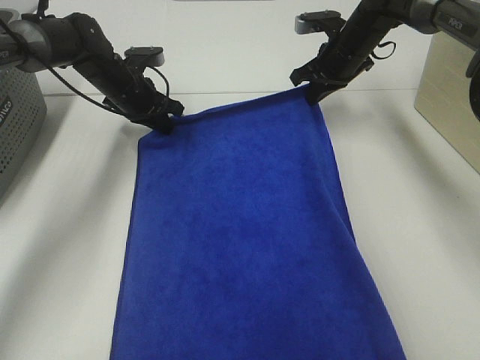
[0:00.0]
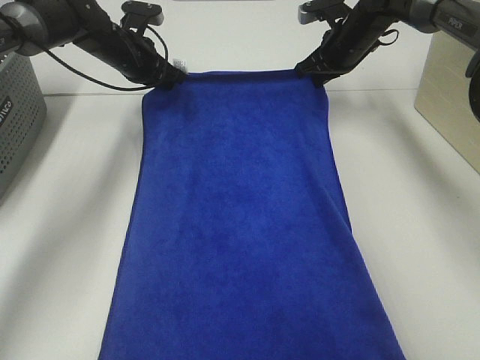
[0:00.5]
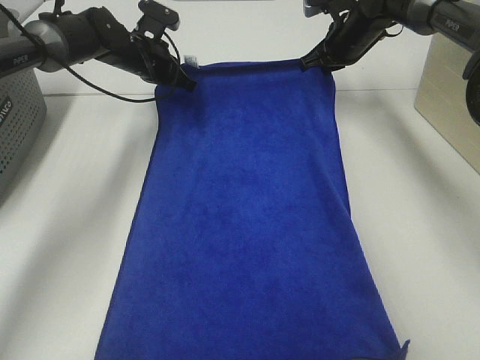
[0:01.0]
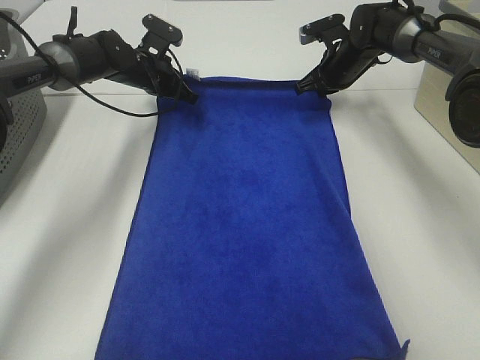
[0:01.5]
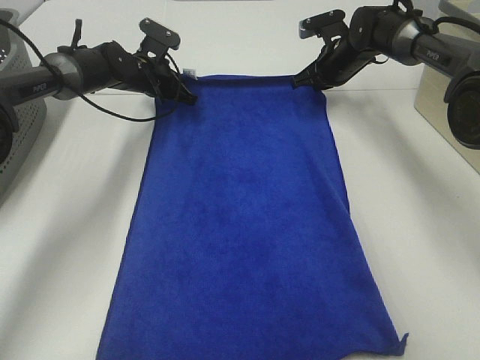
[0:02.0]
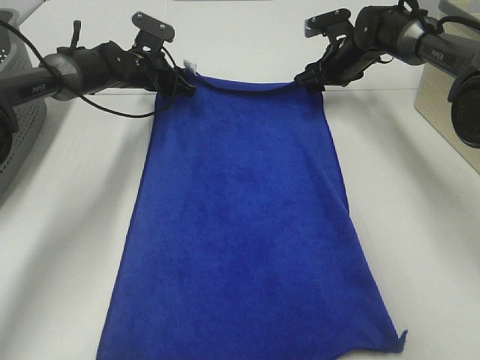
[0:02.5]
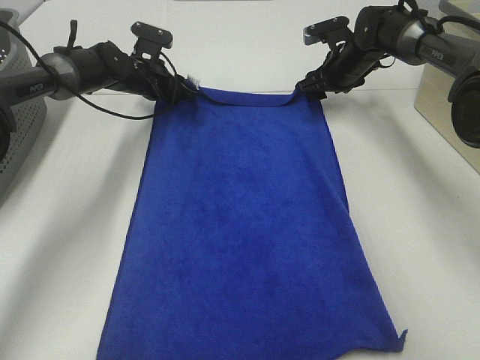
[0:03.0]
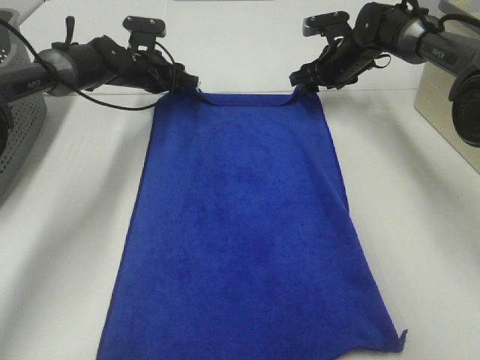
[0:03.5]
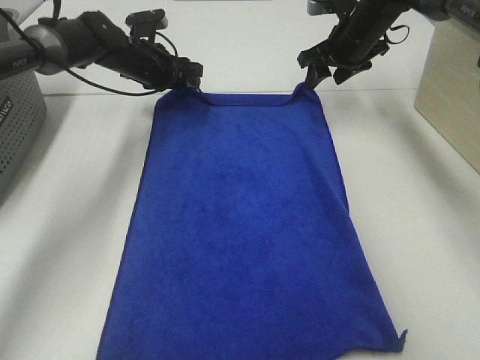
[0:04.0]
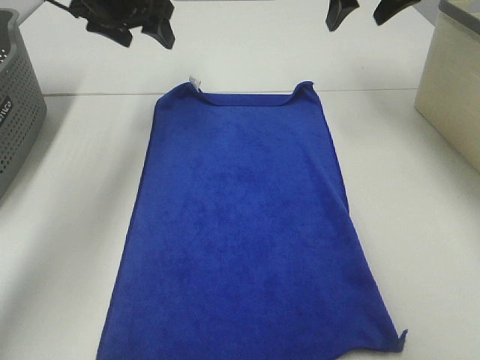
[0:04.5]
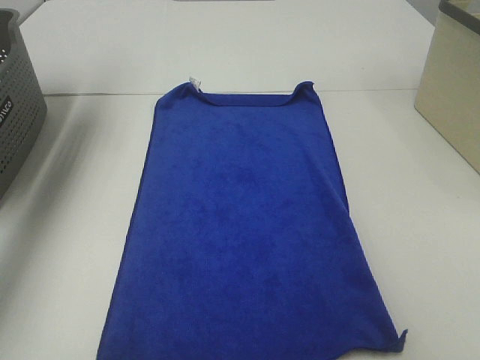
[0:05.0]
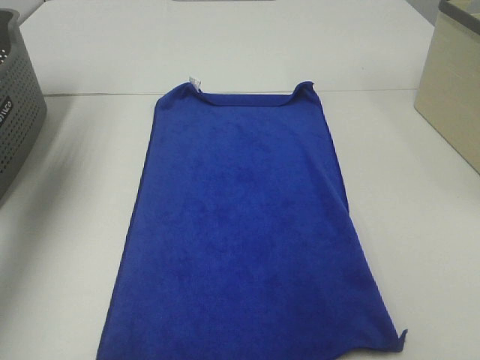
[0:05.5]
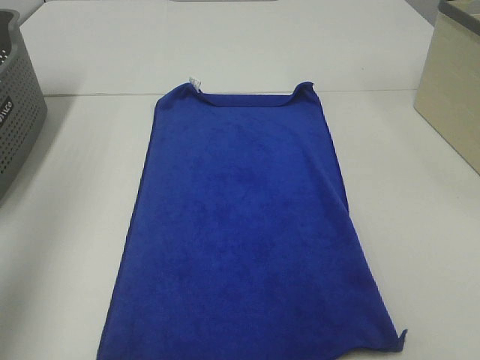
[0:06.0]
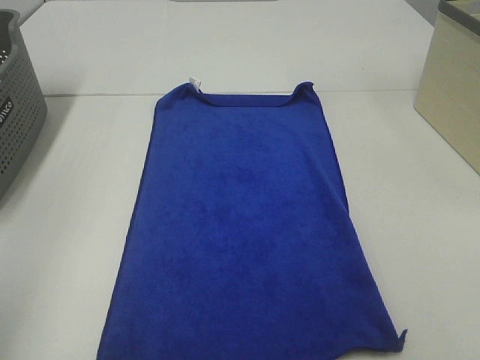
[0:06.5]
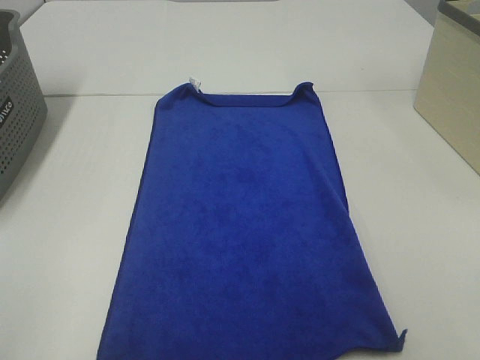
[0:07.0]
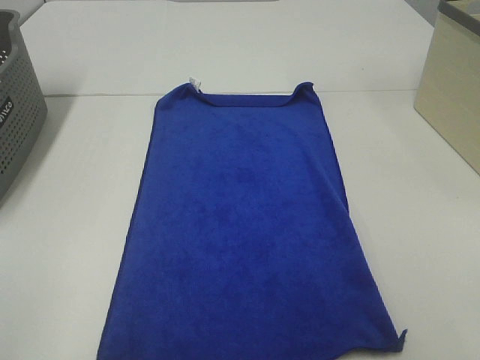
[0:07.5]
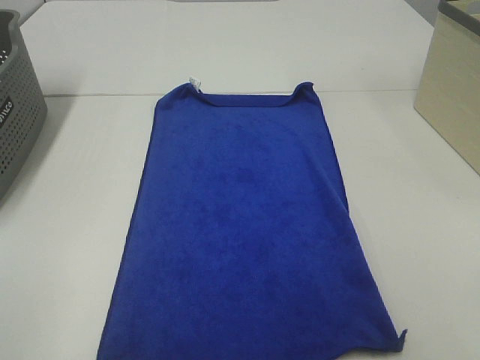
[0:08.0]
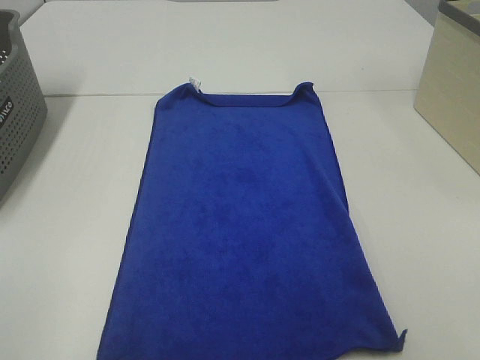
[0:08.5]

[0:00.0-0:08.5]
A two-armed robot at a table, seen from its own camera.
Task of the whole recording: Remove the towel and place it.
0:00.0 to 0:02.0: The left gripper changes place by roughly 5 cm. Meanwhile the right gripper moves approximately 5 cm.
0:02.0 to 0:04.0: The right gripper is displaced upward by some 5 cm, and opens its fingers; the left gripper opens.
0:04.0 to 0:06.5: The right gripper moves backward, roughly 50 cm. Meanwhile the left gripper travels backward and upward by roughly 50 cm.

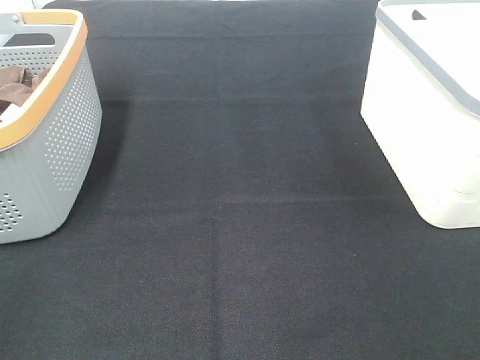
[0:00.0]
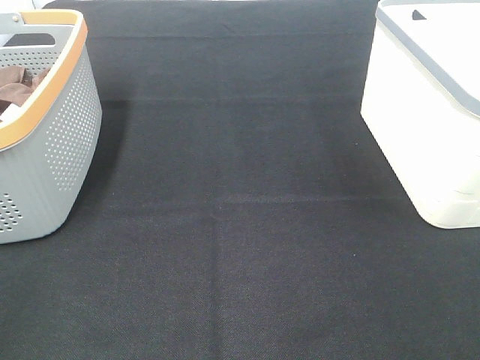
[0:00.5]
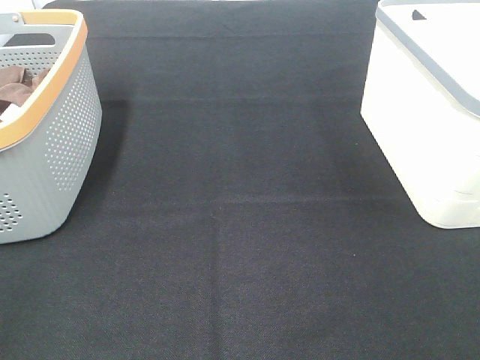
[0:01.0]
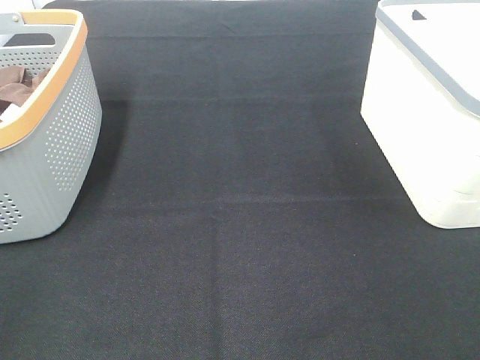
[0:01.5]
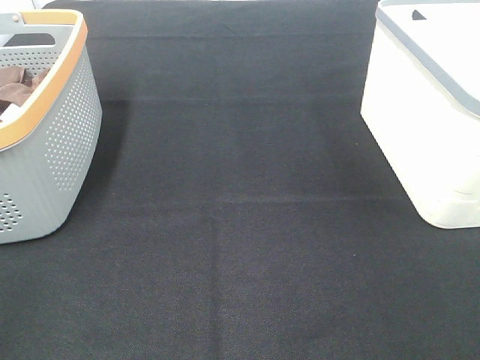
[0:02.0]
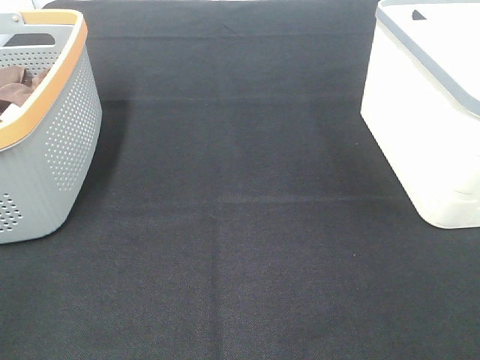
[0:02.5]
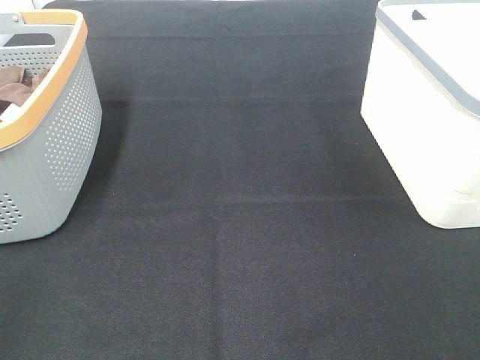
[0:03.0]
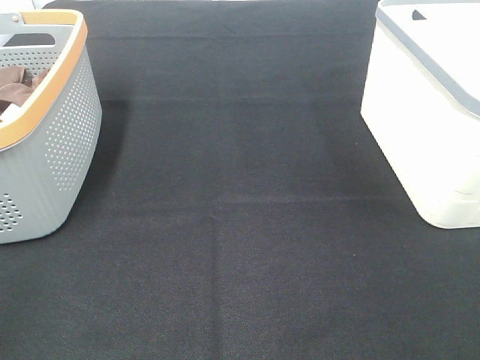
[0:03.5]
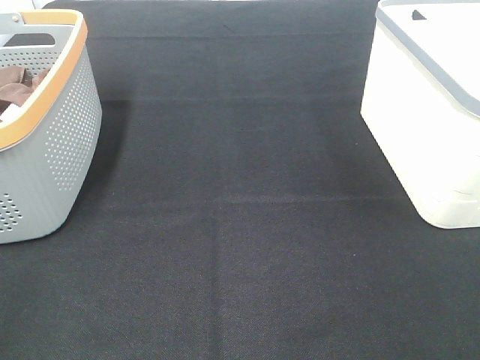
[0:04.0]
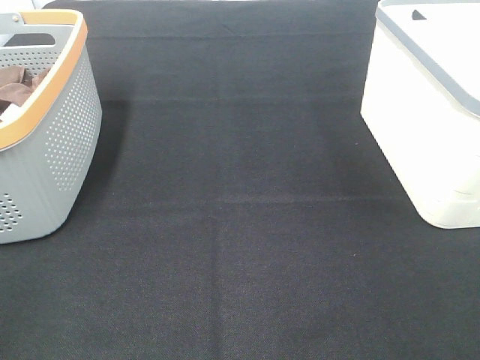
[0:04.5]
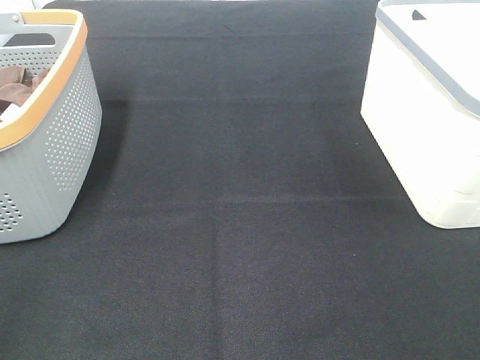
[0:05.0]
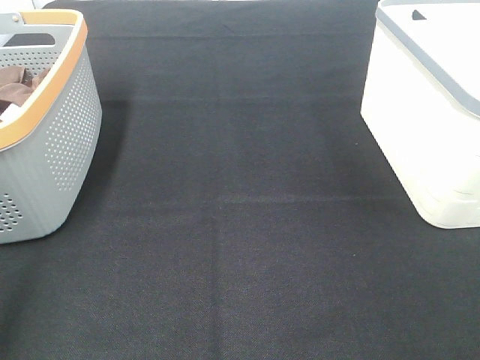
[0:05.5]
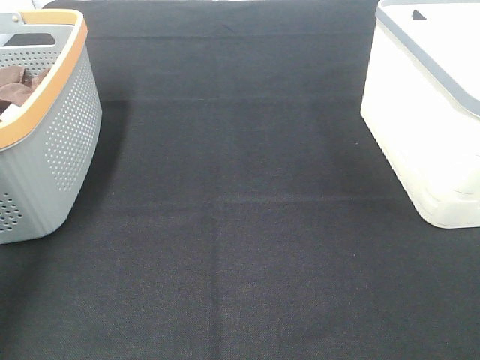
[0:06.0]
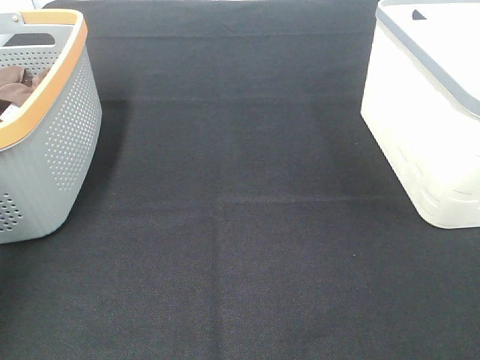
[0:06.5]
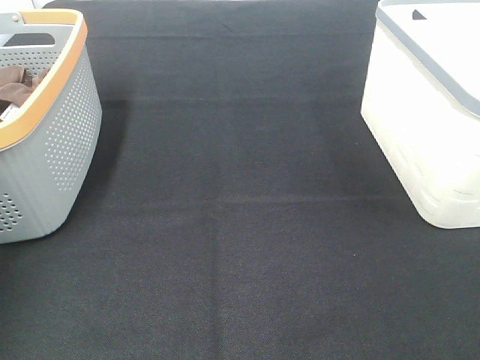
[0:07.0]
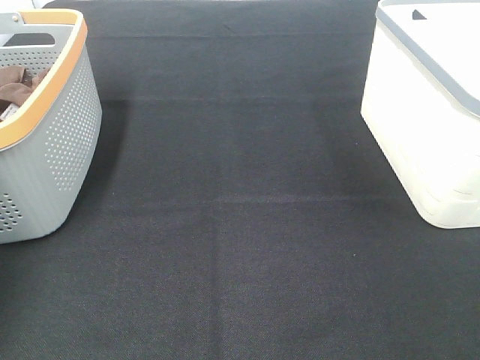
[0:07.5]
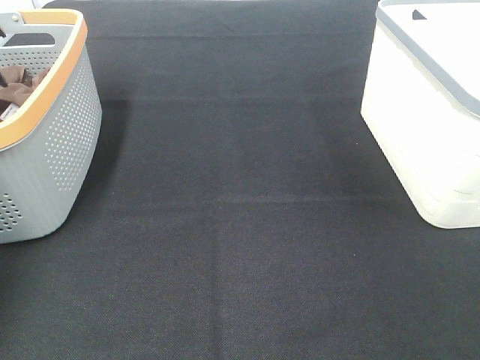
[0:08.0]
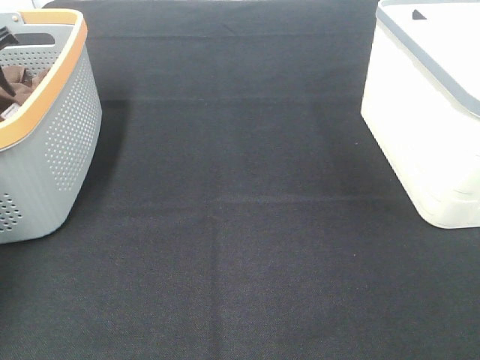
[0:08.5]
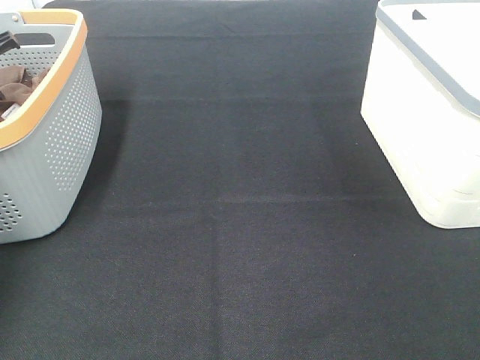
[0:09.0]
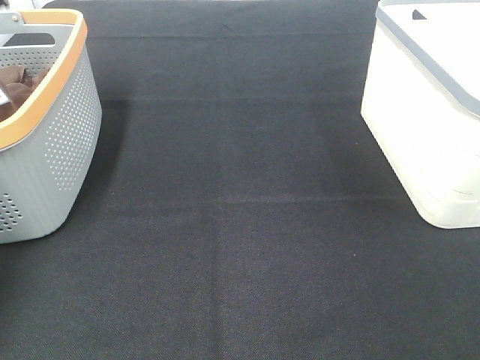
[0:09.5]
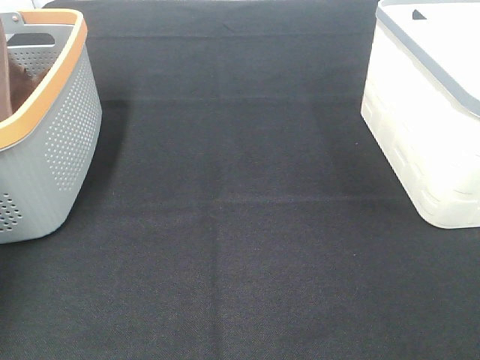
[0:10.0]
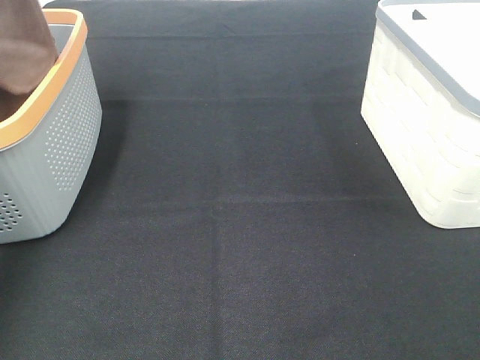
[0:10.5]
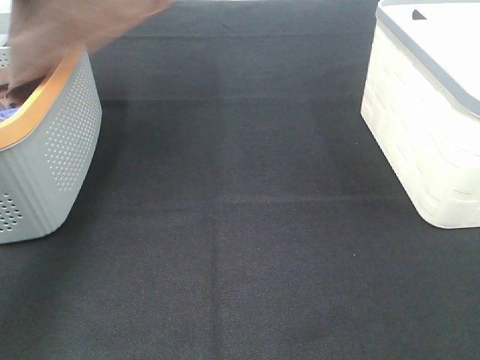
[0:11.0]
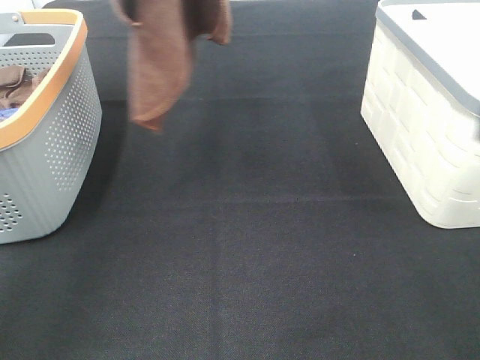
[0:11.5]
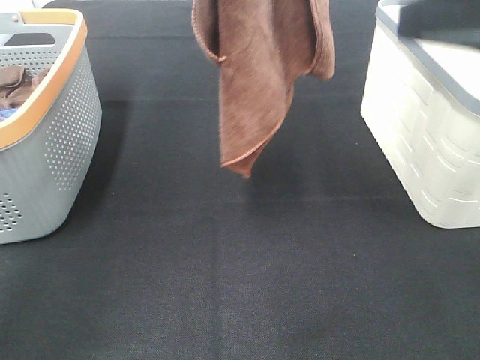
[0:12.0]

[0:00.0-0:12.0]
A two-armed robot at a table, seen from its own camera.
Task of the whole recording: Remove the towel and place it.
0:00.0 to 0:04.0: Neither gripper changes place.
0:04.0 to 0:06.0: The left gripper goes roughly 20 cm forward.
0:06.0 to 0:08.0: The left gripper is displaced forward and downward by roughly 30 cm.
0:08.0 to 0:10.0: The left gripper is displaced upward by approximately 15 cm, and closes.
0:10.0 to 0:12.0: The right gripper goes about 20 cm forward, upward and to the left, while the left gripper goes roughly 30 cm to the right, upward and backward.

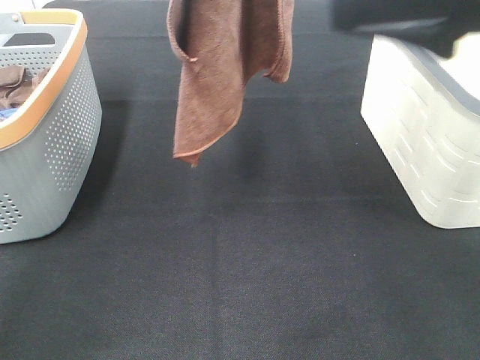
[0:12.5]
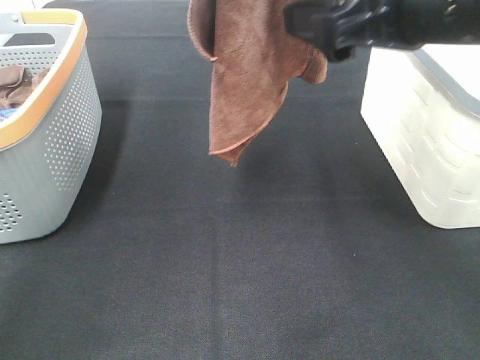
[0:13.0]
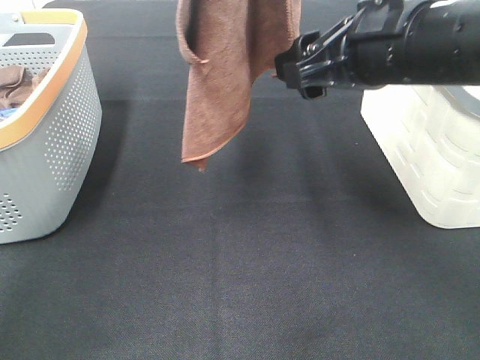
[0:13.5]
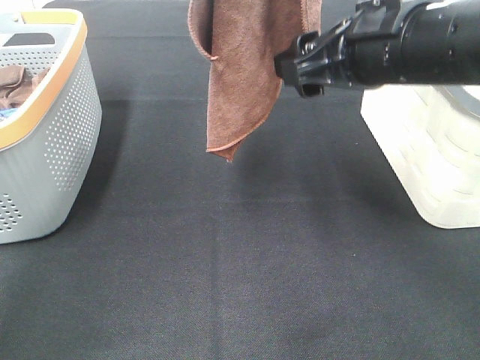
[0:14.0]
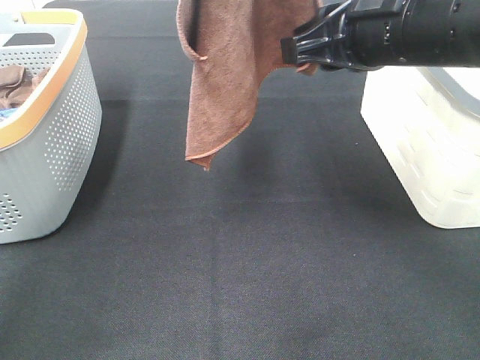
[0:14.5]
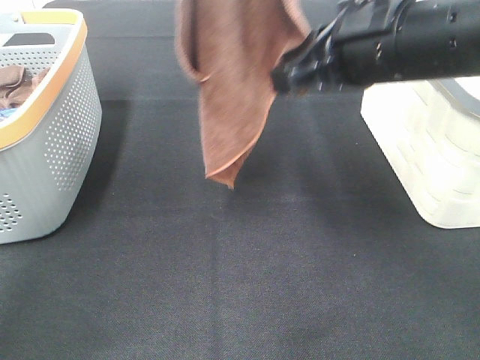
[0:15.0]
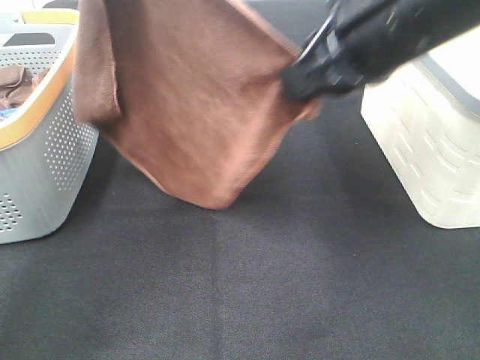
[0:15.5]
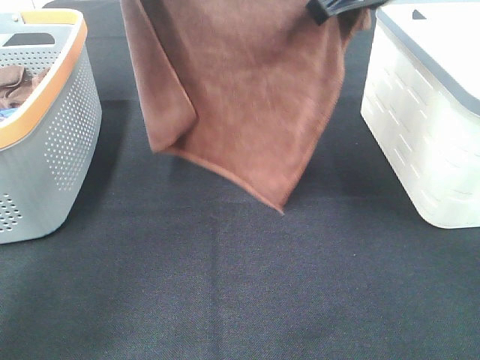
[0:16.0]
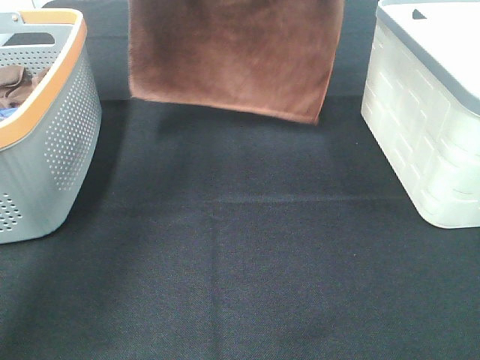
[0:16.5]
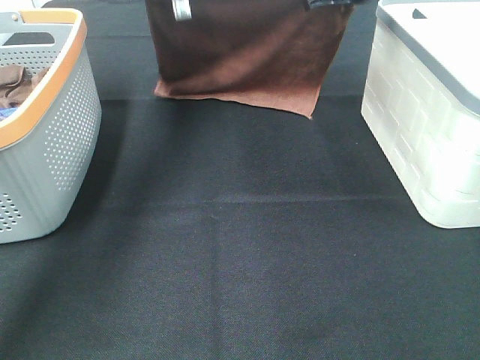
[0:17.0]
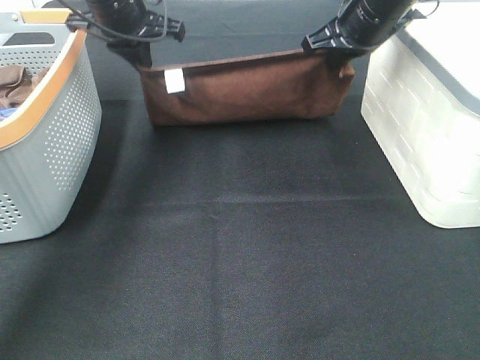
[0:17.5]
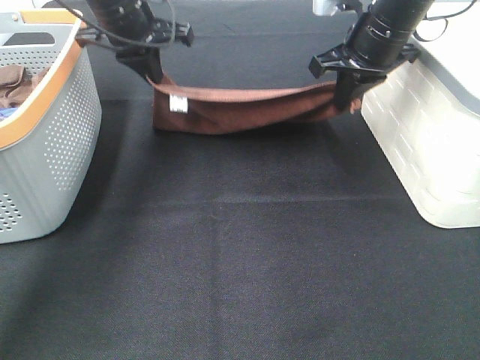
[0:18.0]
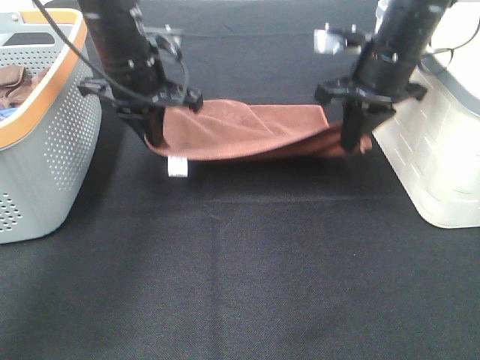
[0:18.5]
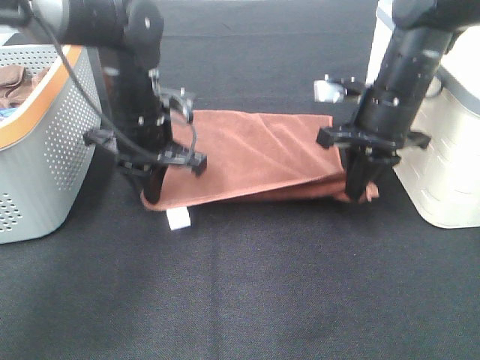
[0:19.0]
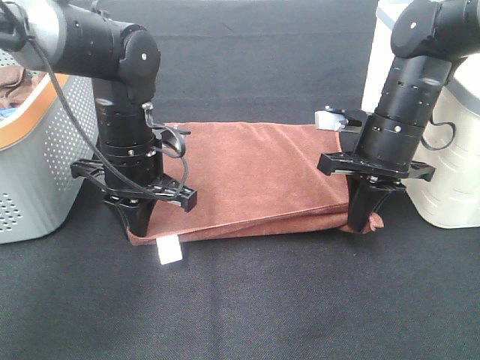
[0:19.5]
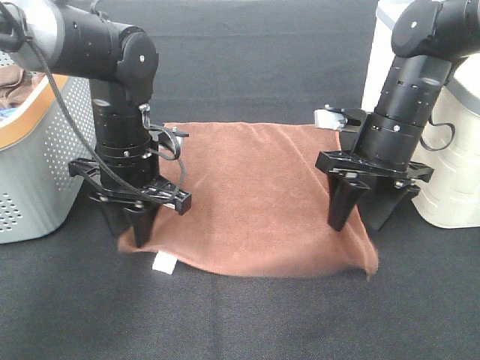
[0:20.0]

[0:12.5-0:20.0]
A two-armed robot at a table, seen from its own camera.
Task of the whole recording: Remove the towel and place it.
Step, 0:13.5 to 0:16.0: Left hand: spread the brown towel flat on the table.
Step, 0:13.5 to 0:16.0: Right hand: spread the brown towel flat on the table.
0:12.5 to 0:14.5: The right gripper travels forward and downward by approximately 10 cm, and closes its fingers.
0:14.5 to 0:16.5: The left gripper travels forward and downward by approximately 25 cm, while the right gripper travels forward by some 15 cm.
0:16.5 to 0:18.0: The two grippers go roughly 15 cm downward.
0:18.0 to 0:20.0: The right gripper goes roughly 10 cm downward and backward, and opens, while the left gripper shifts some 15 cm backward and downward, and opens its fingers.
